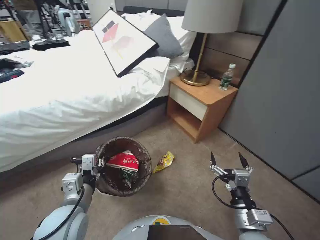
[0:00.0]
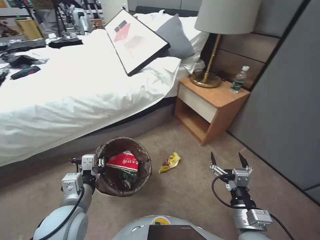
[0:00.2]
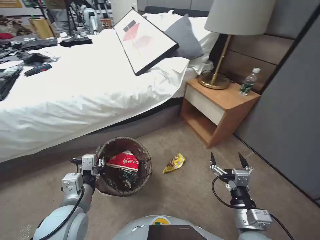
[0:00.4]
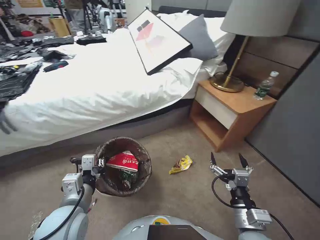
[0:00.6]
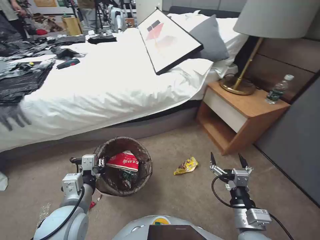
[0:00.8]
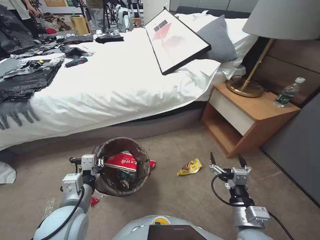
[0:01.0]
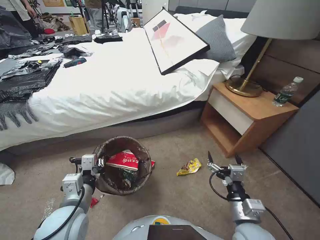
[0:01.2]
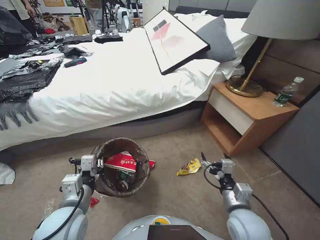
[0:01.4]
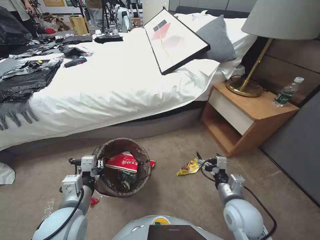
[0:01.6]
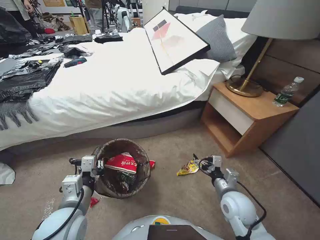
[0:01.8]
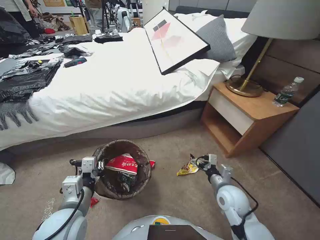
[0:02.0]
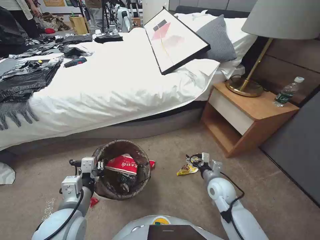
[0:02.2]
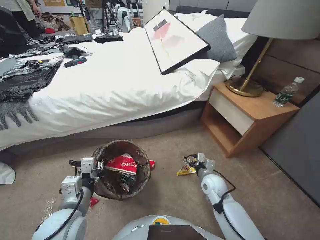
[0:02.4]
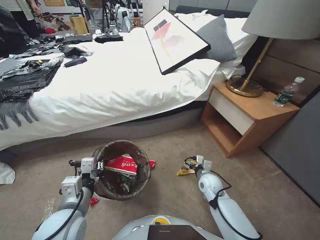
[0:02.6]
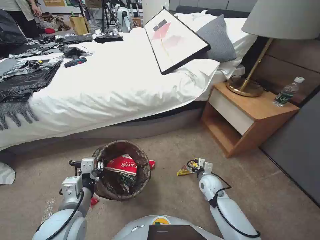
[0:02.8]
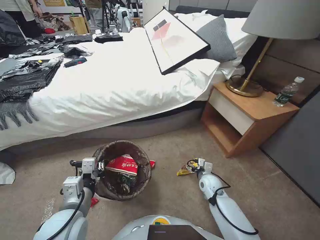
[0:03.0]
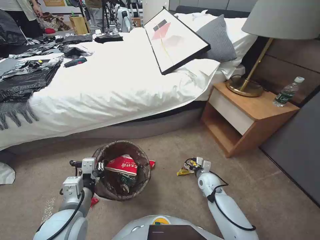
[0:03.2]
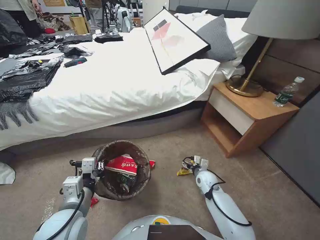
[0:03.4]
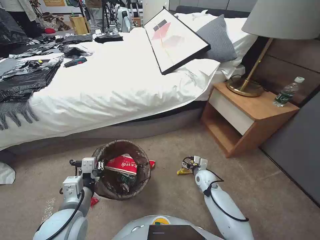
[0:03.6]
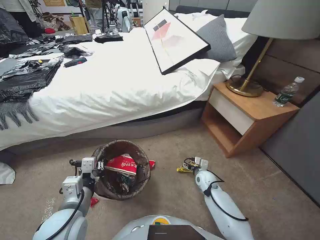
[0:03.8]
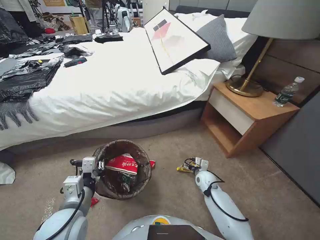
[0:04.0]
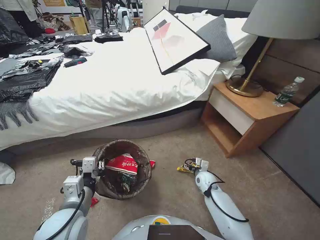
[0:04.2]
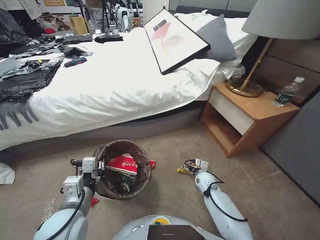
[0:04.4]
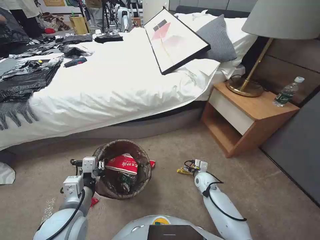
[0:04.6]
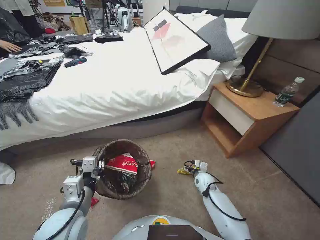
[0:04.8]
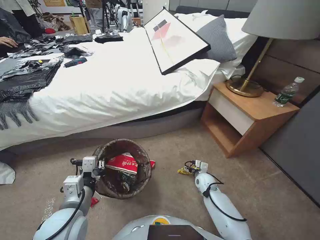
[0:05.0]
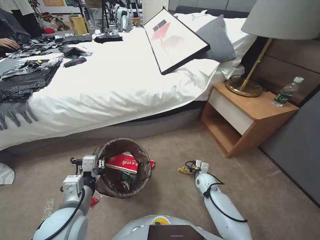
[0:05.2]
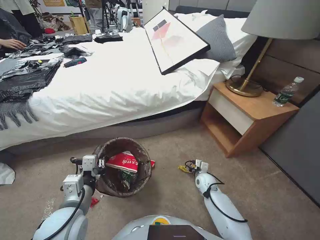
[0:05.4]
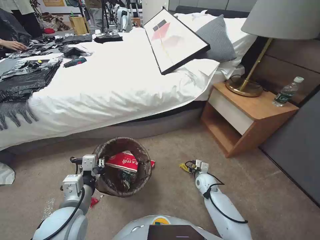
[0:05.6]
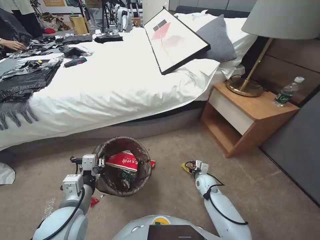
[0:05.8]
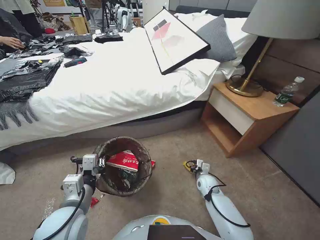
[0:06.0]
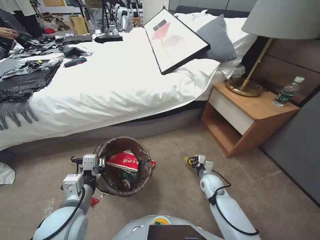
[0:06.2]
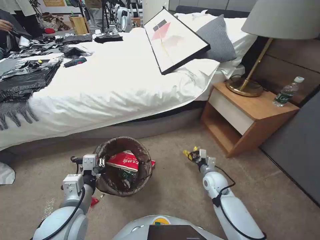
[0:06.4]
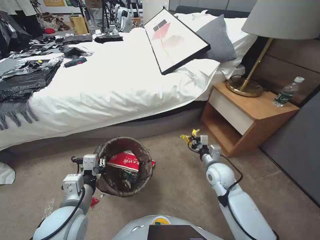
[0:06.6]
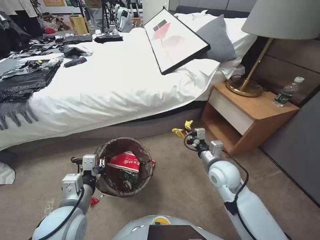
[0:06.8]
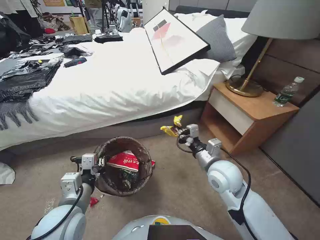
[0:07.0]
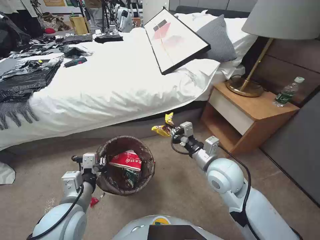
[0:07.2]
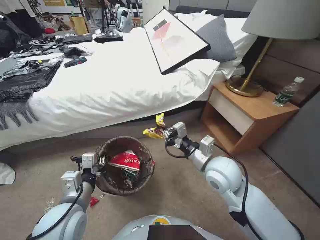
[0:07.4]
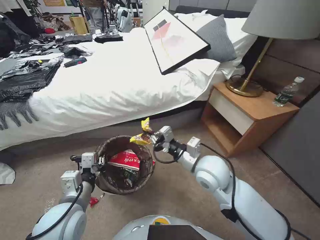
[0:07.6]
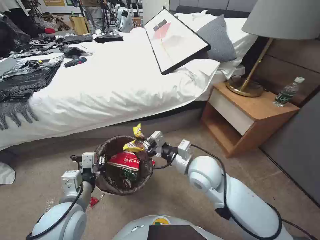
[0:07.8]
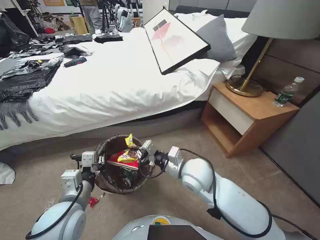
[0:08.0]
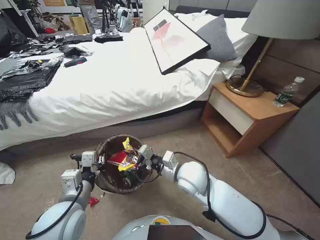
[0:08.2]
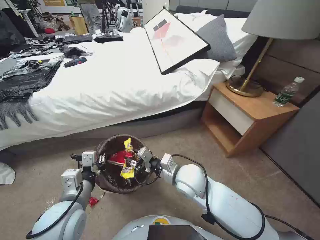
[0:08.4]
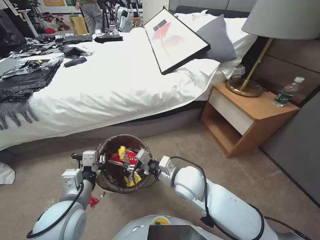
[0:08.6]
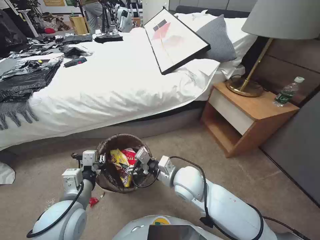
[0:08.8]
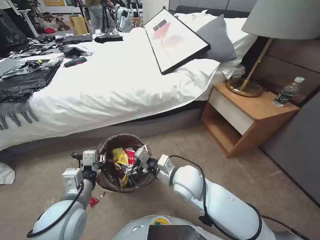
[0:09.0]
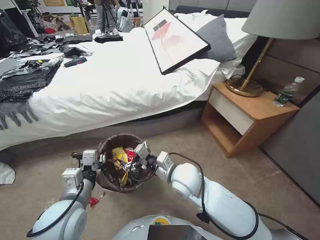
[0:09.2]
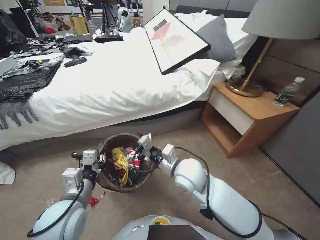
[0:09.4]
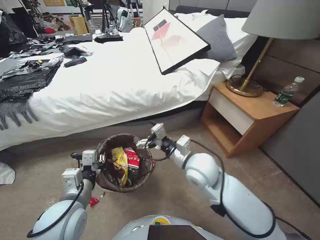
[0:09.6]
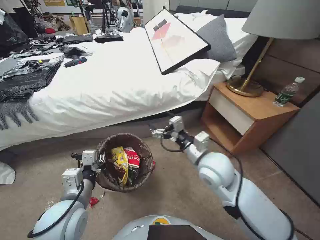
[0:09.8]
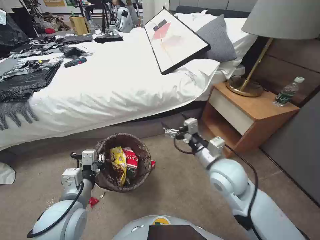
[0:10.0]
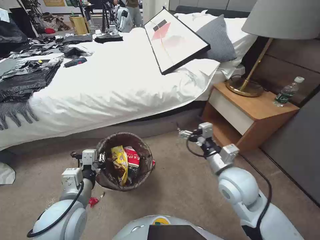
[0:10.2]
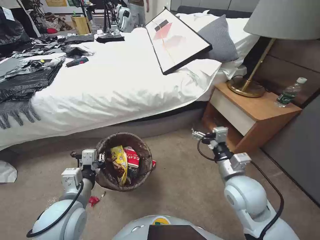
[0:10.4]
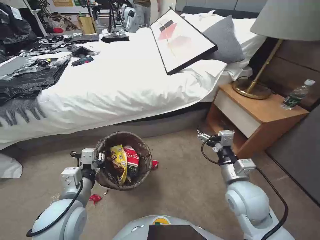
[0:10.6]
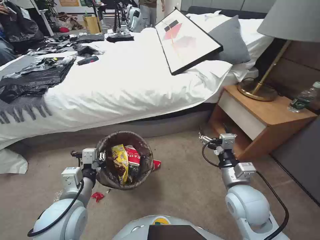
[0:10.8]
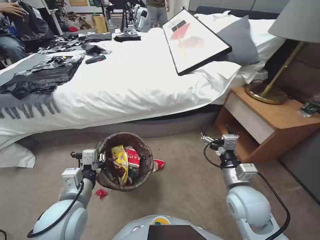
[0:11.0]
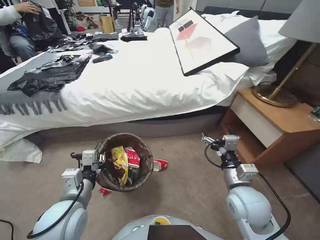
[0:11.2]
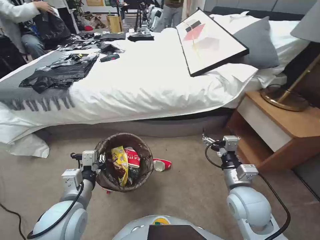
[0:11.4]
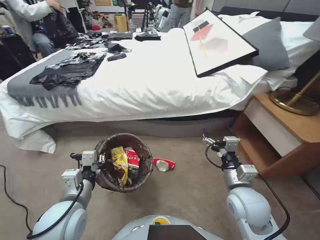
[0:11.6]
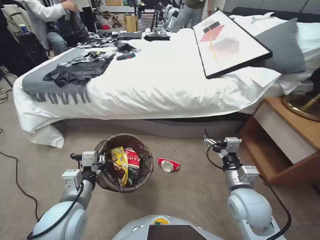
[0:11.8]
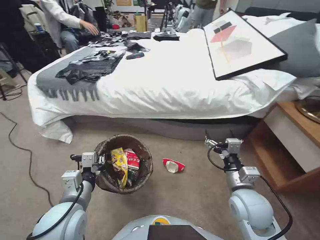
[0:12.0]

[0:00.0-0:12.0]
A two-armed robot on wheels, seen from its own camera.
Task of the whole recording: Pick up the trash bin, then pick up the garbage from the floor and place it into the trash bin.
0:00.0 to 0:01.6: The right gripper shifts approximately 10 cm forward.
0:01.6 to 0:03.0: The right gripper travels downward and forward by roughly 20 cm.
0:03.0 to 0:04.4: The grippers stay close to where they were, moving slightly.
0:04.4 to 0:06.0: The right gripper closes its fingers.
0:06.0 to 0:07.6: The right gripper heads upward, covering some 30 cm.
0:07.6 to 0:09.0: The right gripper is displaced to the left and downward by roughly 10 cm, and opens up.
0:09.0 to 0:10.4: The right gripper moves to the right, about 15 cm.
0:10.4 to 0:12.0: The right gripper ends up approximately 5 cm from where it was.

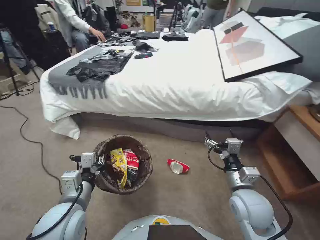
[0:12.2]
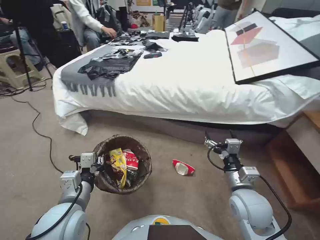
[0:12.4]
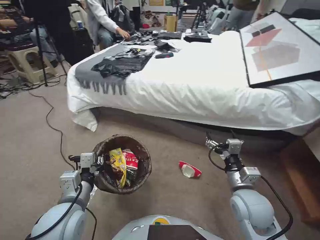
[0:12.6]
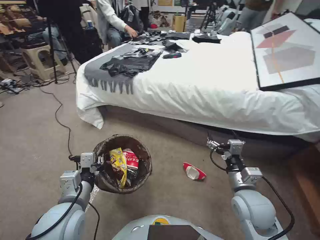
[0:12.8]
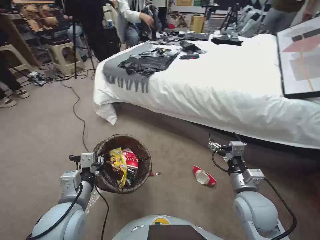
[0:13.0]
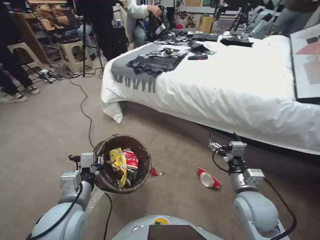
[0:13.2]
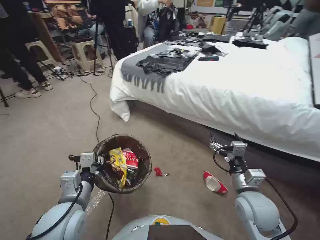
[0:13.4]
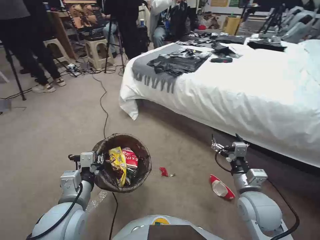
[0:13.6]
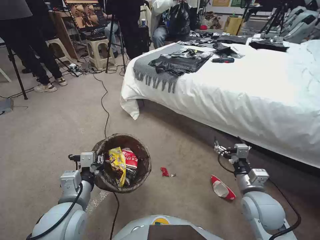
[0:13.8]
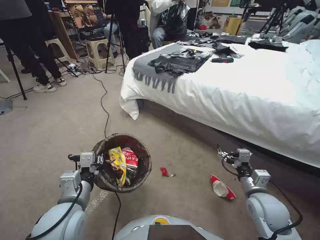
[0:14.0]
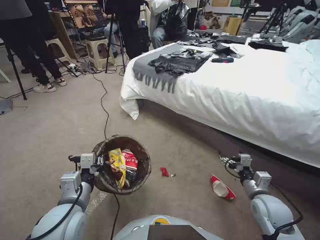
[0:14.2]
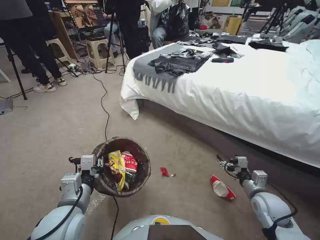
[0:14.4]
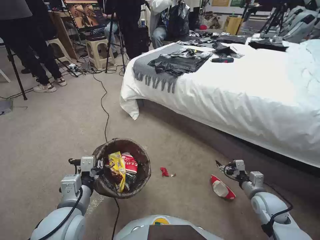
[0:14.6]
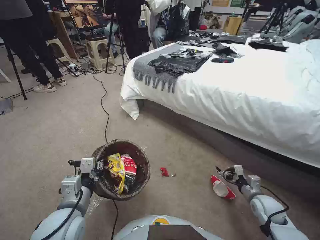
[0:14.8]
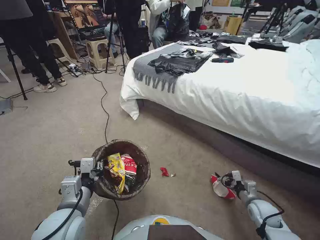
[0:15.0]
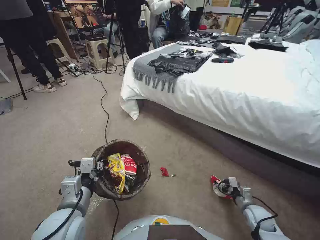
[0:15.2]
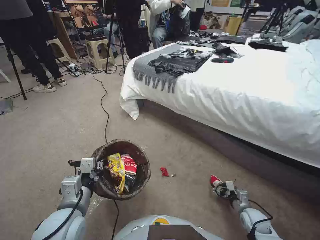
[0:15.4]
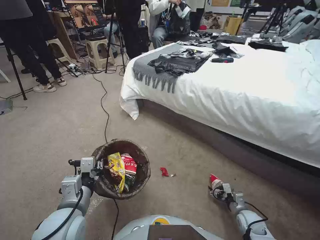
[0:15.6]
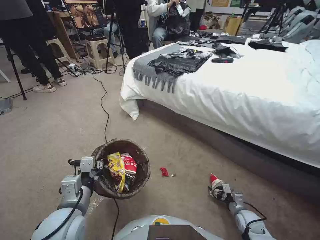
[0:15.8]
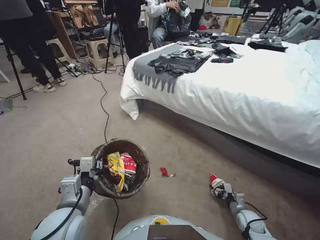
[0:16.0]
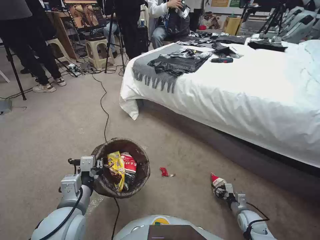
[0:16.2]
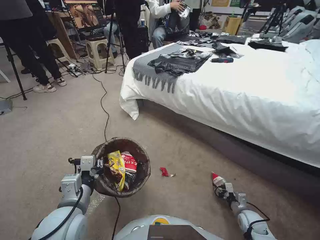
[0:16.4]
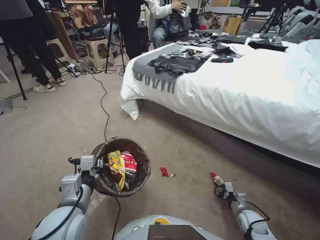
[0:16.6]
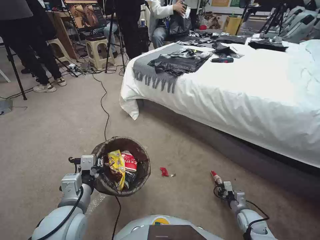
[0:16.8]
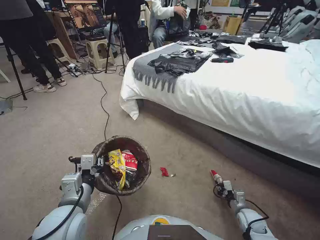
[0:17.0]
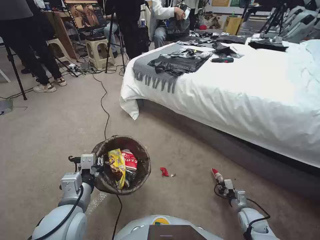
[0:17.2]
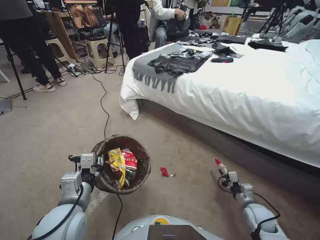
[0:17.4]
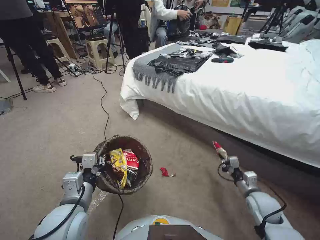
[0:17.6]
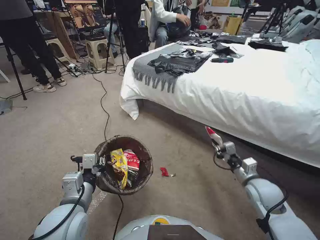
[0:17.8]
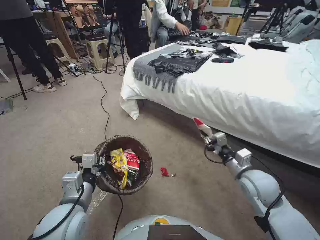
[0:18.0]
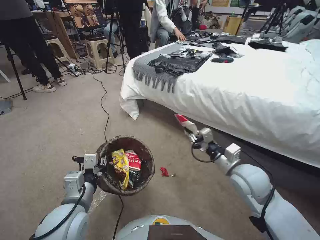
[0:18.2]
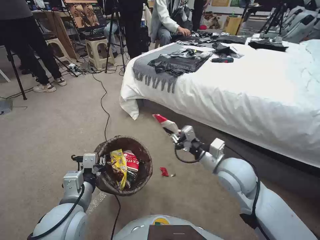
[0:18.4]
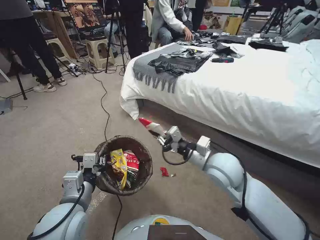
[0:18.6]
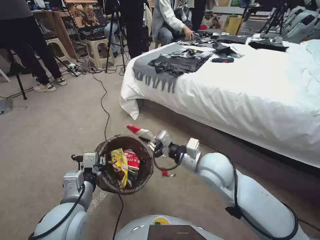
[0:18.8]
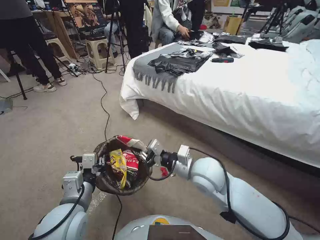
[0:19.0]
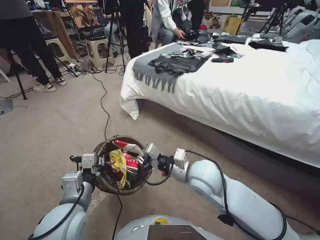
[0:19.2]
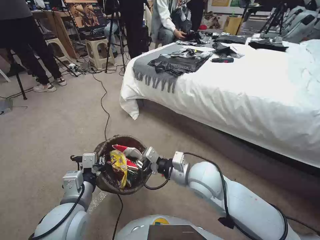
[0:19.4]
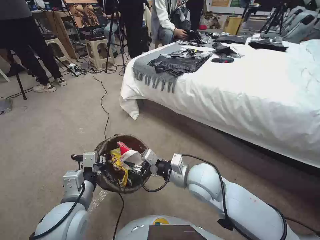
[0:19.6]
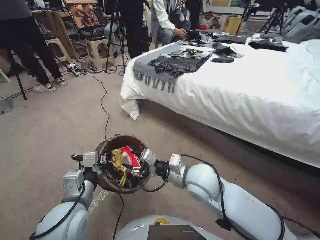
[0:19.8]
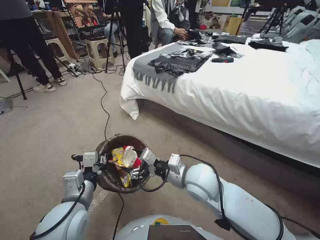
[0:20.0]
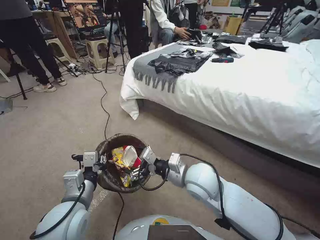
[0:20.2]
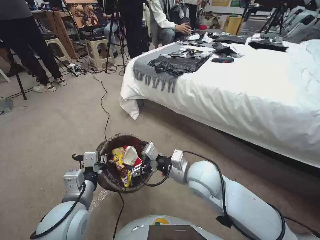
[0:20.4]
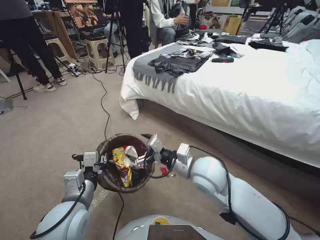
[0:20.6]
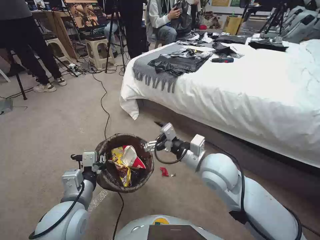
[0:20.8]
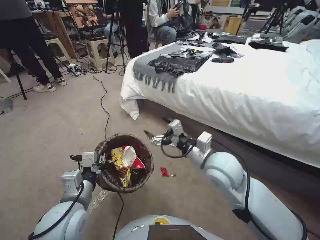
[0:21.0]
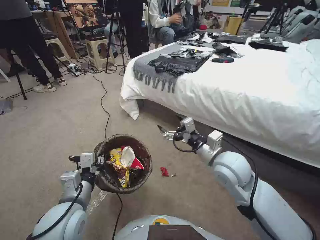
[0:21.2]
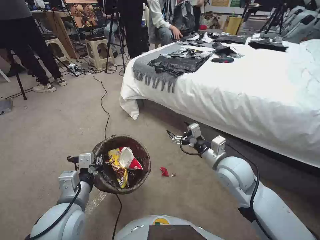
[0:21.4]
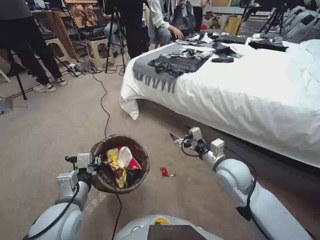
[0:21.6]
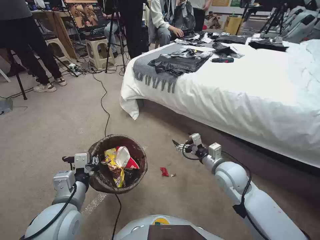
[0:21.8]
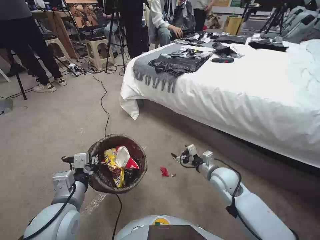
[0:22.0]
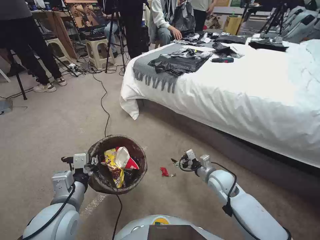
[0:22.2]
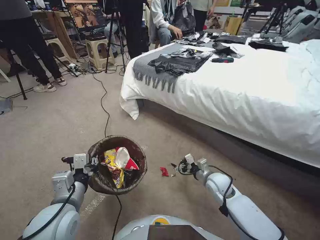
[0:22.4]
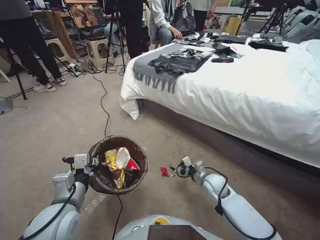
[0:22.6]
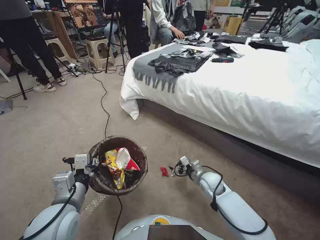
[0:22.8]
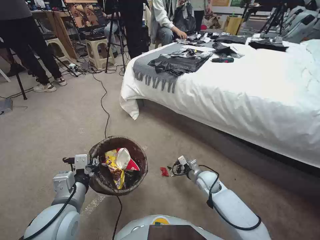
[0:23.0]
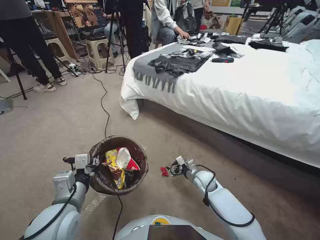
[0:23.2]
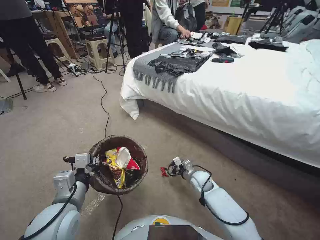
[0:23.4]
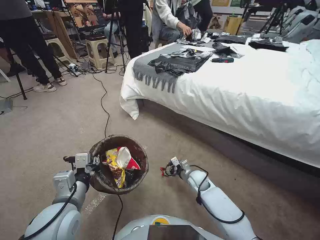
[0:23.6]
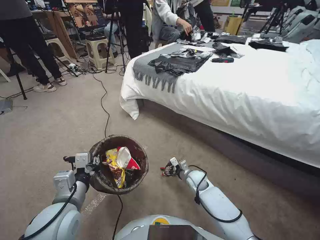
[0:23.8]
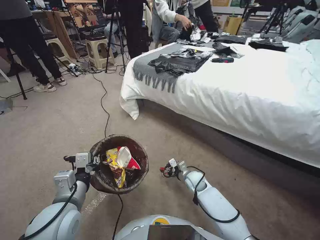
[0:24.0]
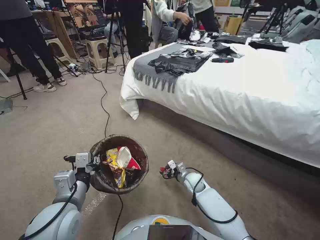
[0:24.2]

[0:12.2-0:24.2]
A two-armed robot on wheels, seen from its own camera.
Task of the whole recording: Pick up the trash bin, then pick up the garbage from the floor and place it into the trash bin.
0:12.2 to 0:13.8: The right gripper moves about 5 cm.
0:13.8 to 0:15.2: The right gripper goes some 20 cm downward and to the right.
0:15.2 to 0:16.6: The right gripper is displaced downward by some 5 cm, and closes its fingers.
0:16.6 to 0:18.2: The right gripper travels upward and to the left by approximately 30 cm, and closes its fingers.
0:18.2 to 0:19.8: The right gripper heads to the left, covering some 15 cm, and opens up.
0:19.8 to 0:21.2: The right gripper heads to the right, covering roughly 5 cm, and opens its fingers.
0:21.2 to 0:22.6: The right gripper is displaced downward by about 25 cm.
0:22.6 to 0:24.2: The right gripper shifts about 10 cm downward and to the left.
